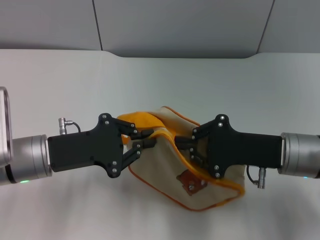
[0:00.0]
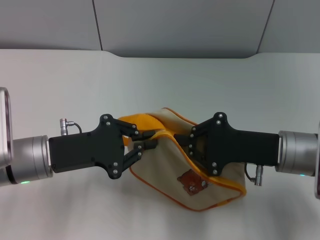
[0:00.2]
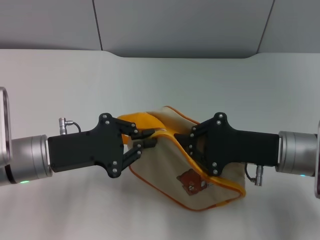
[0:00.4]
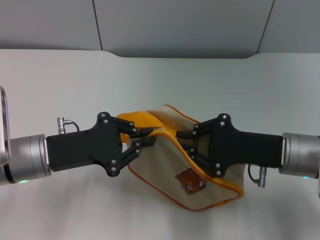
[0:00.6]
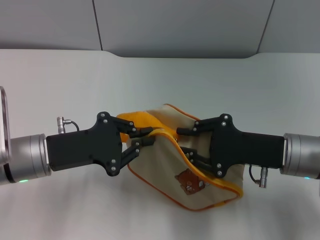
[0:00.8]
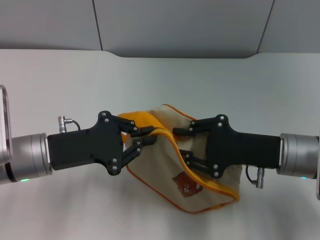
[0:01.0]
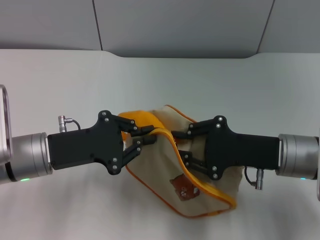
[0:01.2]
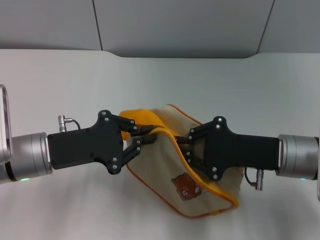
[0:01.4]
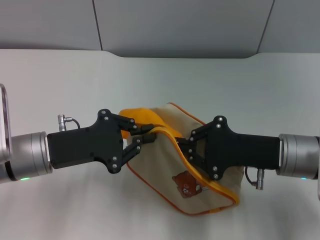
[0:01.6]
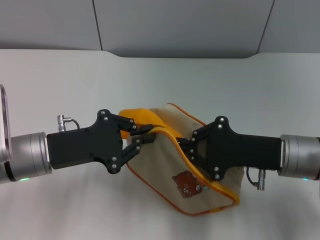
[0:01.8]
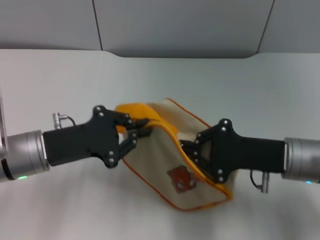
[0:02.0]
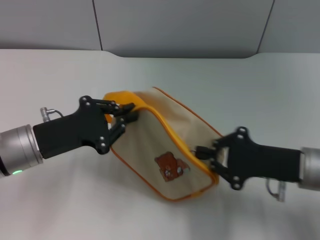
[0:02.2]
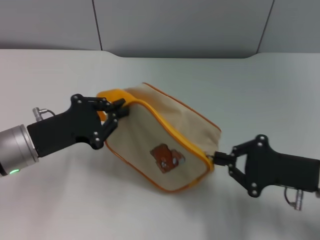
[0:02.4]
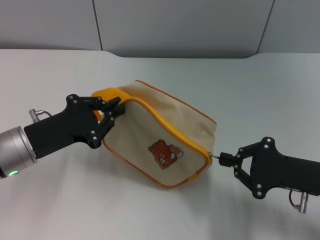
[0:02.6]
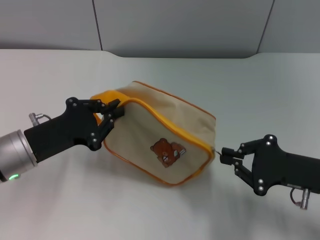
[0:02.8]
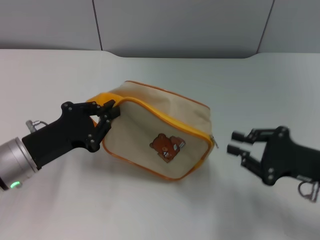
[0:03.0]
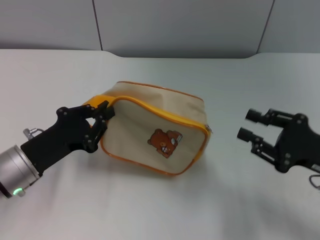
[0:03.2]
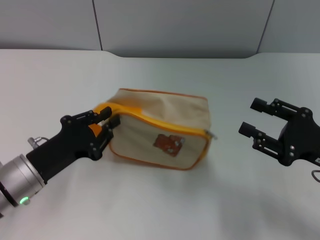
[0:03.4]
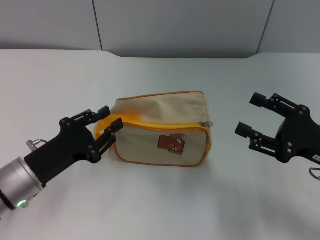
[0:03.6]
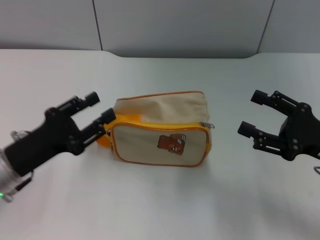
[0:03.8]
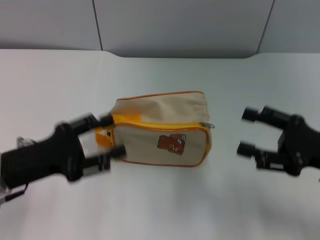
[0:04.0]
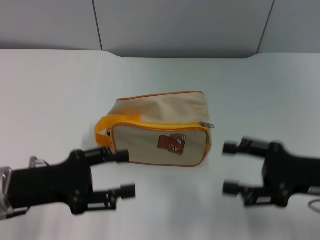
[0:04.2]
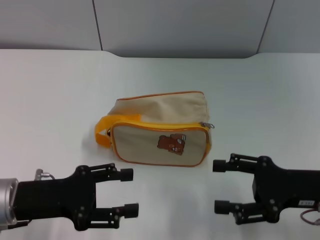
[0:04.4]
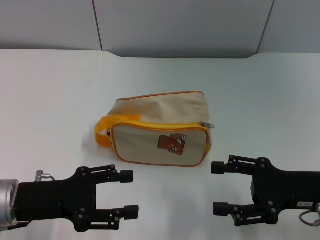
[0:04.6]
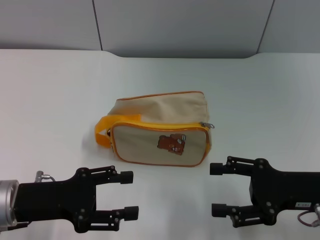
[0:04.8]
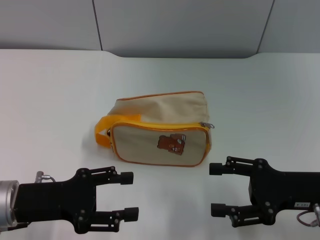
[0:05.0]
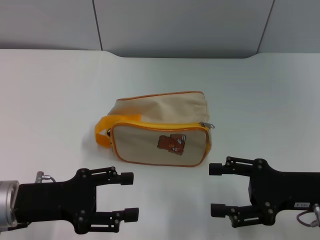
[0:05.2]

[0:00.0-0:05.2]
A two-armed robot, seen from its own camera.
Step, 0:00.0 to 0:03.0: Unzip the zipper of bag with right gripper.
Step, 0:03.2 to 0:03.6: Place the bag on the table with left gripper.
0:00.0 to 0:01.8: Both grippers stay about where they are.
0:01.8 to 0:03.4: The left gripper ends up about 5 cm from where it was. Meanwhile the right gripper is displaced to the right by approximately 10 cm, and opens its fingers.
0:03.4 to 0:05.2: The right gripper opens, while the left gripper opens up.

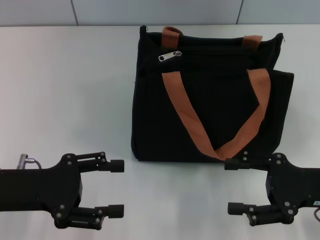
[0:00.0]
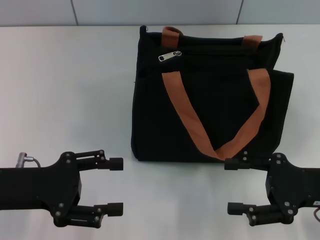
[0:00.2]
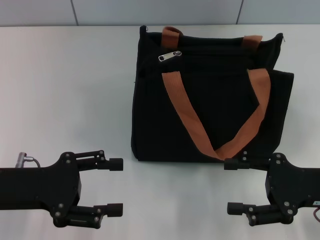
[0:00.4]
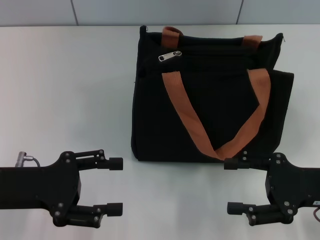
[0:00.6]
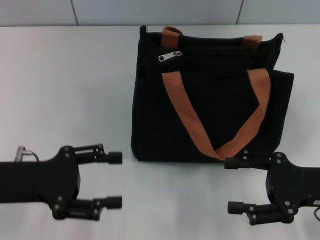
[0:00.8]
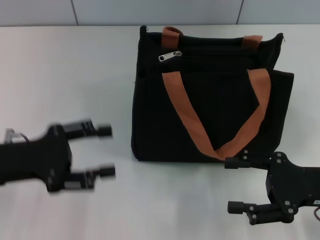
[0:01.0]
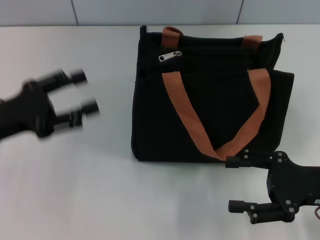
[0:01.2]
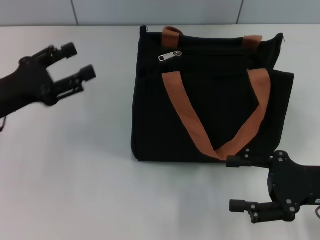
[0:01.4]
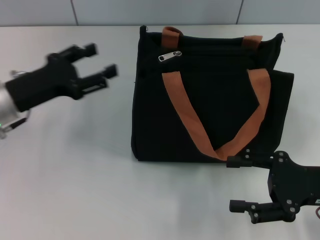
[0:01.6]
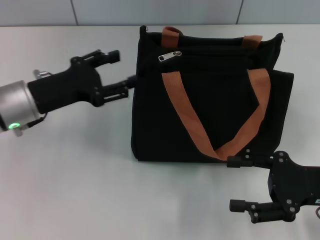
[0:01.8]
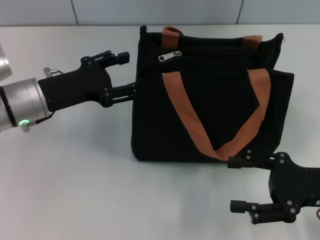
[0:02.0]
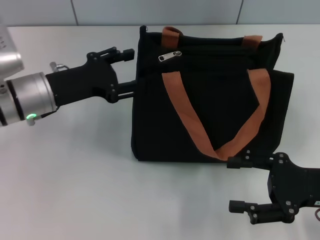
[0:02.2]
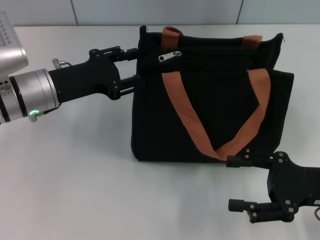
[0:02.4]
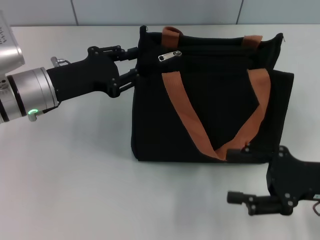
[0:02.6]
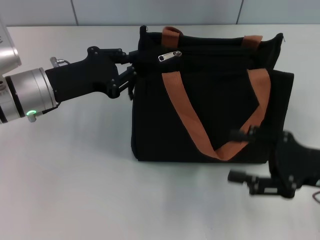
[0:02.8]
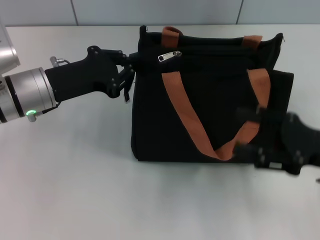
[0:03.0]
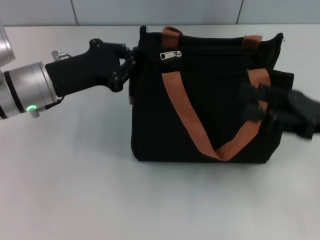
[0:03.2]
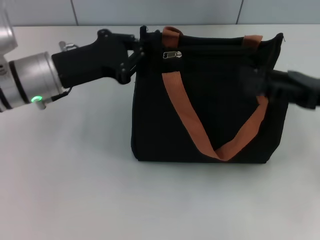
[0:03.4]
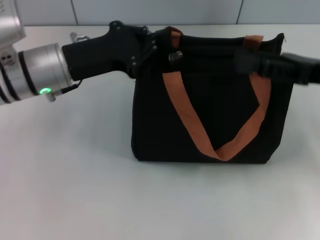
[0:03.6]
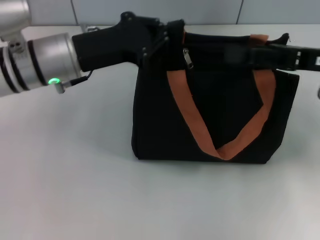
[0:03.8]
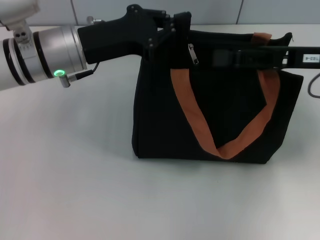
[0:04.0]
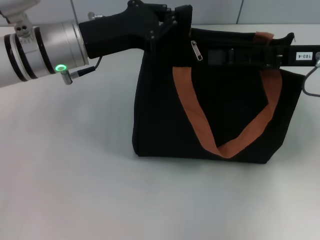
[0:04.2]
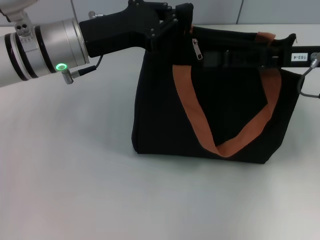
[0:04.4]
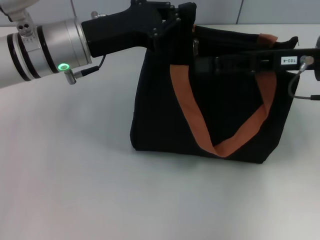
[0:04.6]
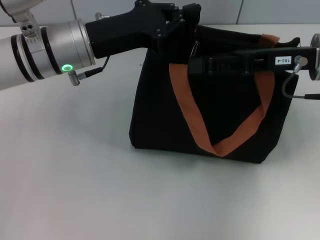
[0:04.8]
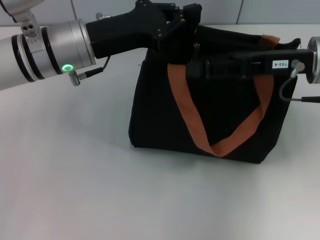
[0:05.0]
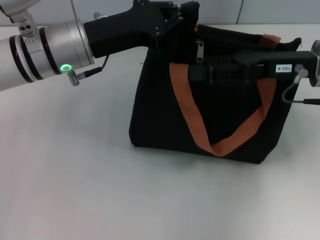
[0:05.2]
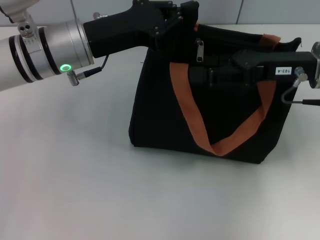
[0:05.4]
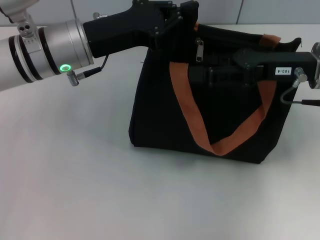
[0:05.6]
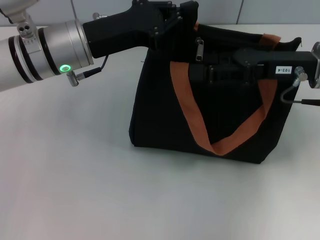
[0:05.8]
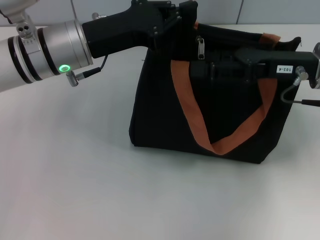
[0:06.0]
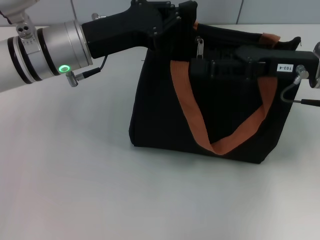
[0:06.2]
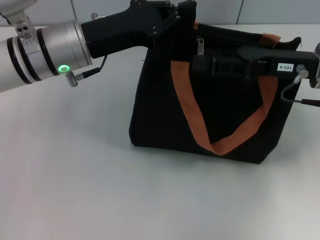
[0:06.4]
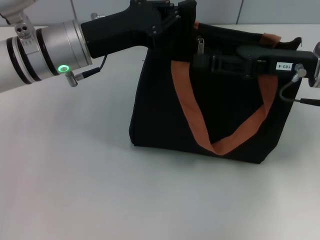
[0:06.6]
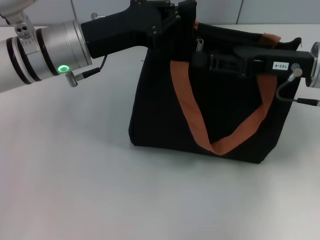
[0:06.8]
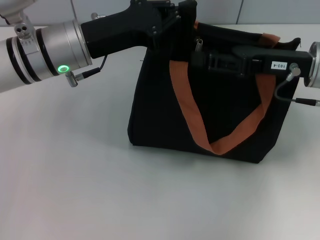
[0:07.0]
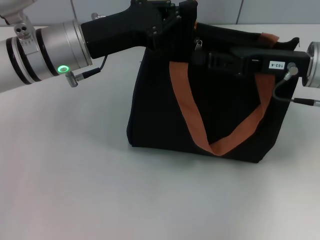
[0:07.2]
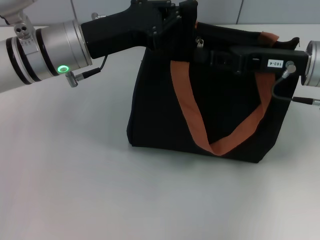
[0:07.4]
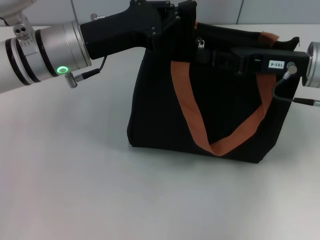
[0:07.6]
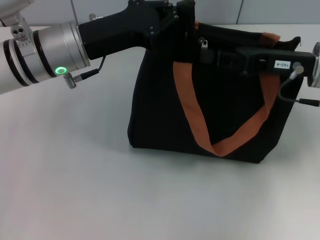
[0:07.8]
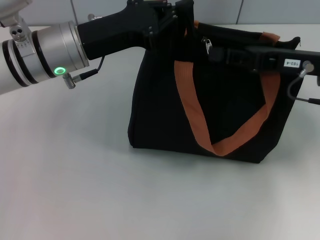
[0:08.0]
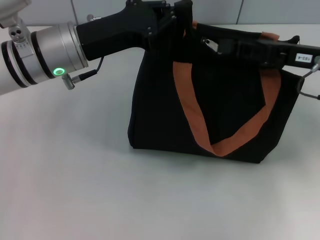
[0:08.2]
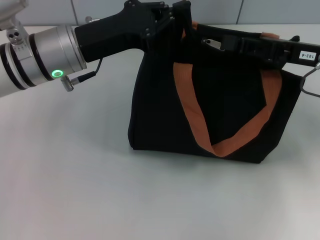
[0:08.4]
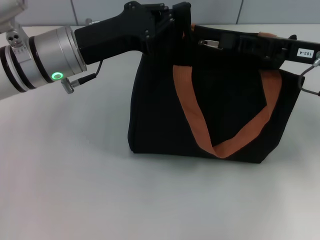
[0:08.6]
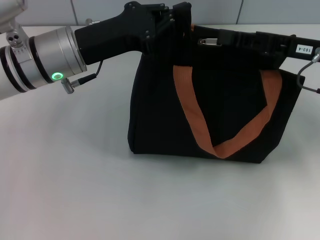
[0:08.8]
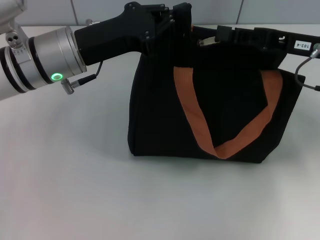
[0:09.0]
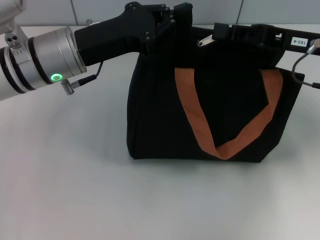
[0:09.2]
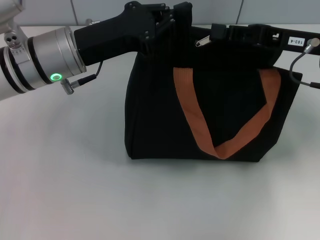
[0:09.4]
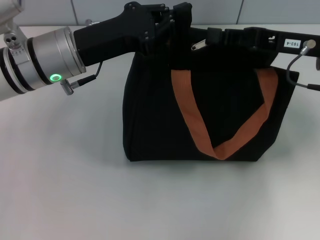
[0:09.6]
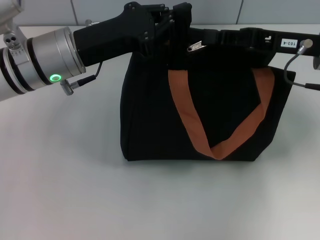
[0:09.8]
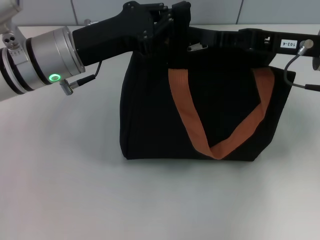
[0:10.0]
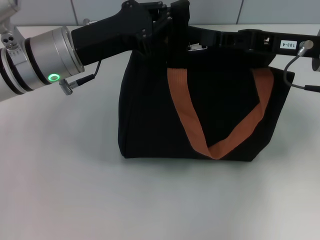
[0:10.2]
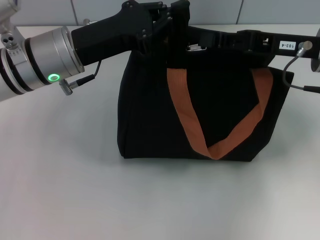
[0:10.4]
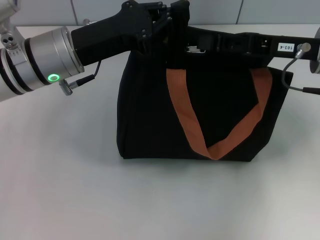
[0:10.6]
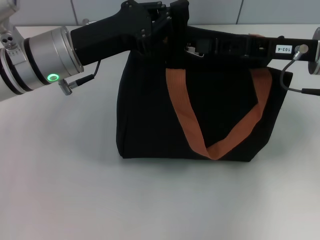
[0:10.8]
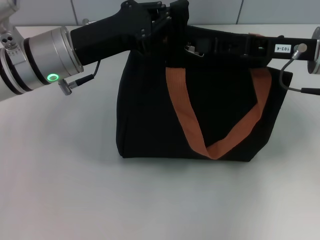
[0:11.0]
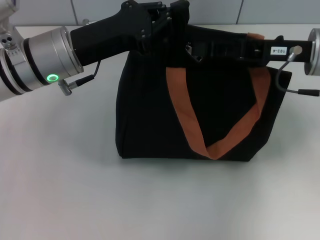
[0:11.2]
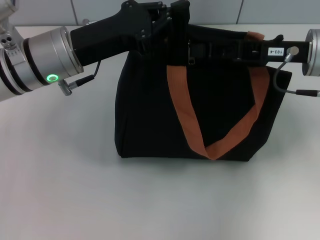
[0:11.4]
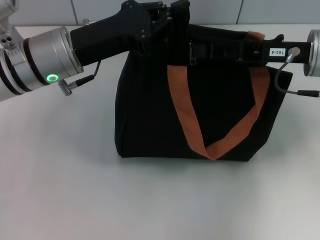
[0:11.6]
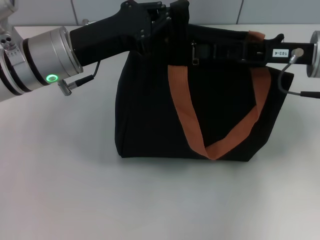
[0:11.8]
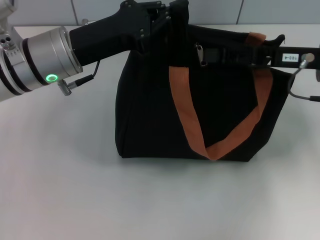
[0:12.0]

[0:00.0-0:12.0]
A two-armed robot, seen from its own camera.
0:00.0 to 0:01.6: The left gripper shifts approximately 10 cm forward.
0:01.6 to 0:03.0: The left gripper is displaced to the right by approximately 5 cm, and closes its fingers.
0:03.0 to 0:04.4: The right gripper heads forward and upward, covering about 15 cm; the left gripper travels to the right and upward by approximately 10 cm.
0:04.4 to 0:06.0: There are only small adjustments of the grippers.
0:06.0 to 0:07.6: The right gripper closes its fingers.
0:07.6 to 0:10.4: The grippers make only small movements.
0:10.4 to 0:12.0: Neither gripper changes place.

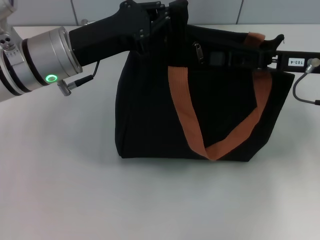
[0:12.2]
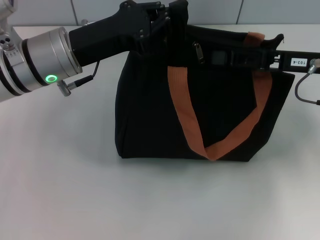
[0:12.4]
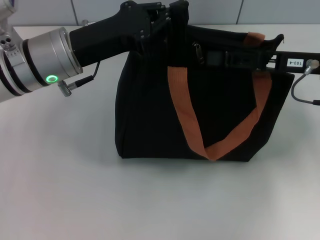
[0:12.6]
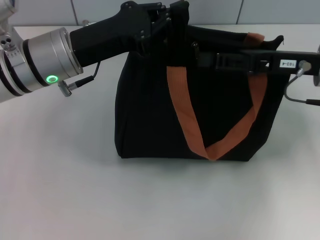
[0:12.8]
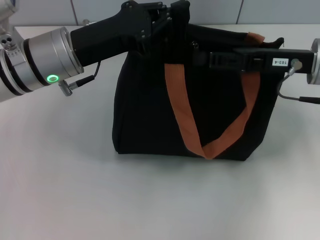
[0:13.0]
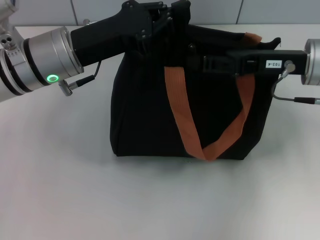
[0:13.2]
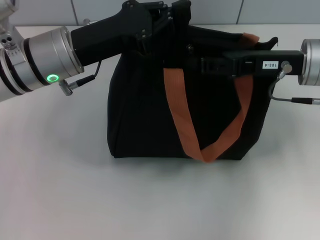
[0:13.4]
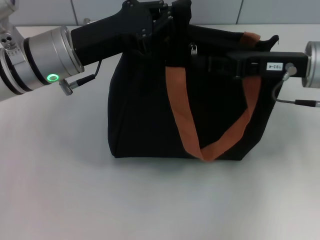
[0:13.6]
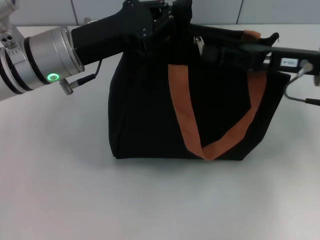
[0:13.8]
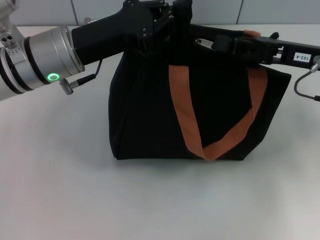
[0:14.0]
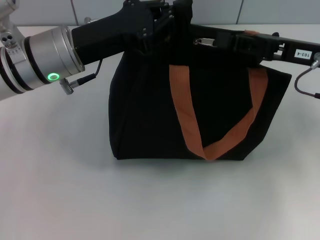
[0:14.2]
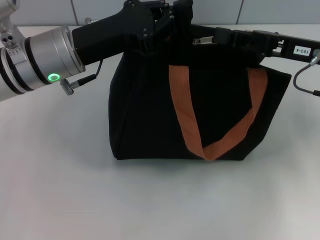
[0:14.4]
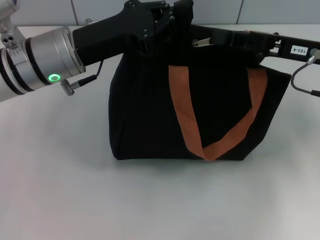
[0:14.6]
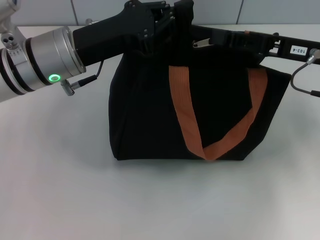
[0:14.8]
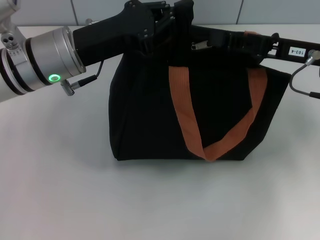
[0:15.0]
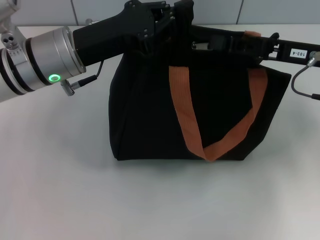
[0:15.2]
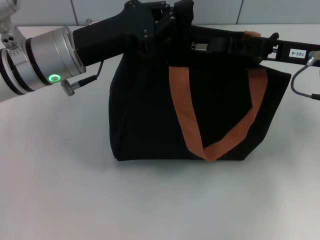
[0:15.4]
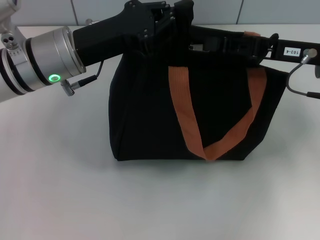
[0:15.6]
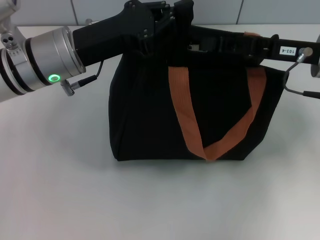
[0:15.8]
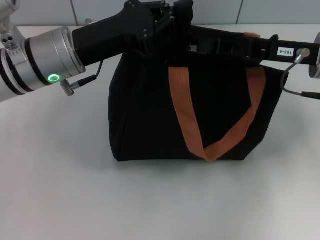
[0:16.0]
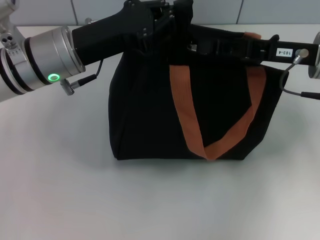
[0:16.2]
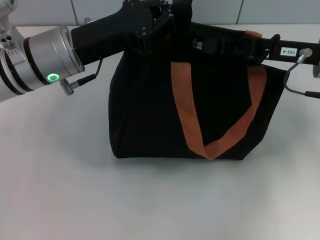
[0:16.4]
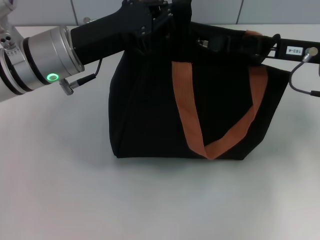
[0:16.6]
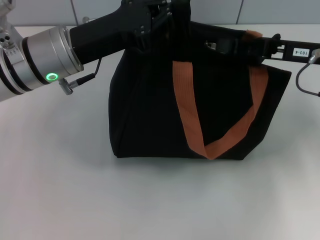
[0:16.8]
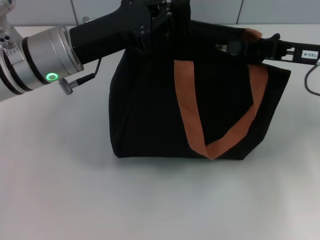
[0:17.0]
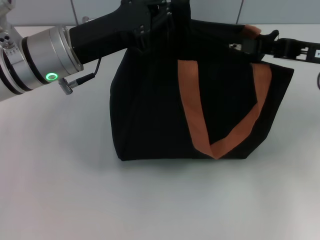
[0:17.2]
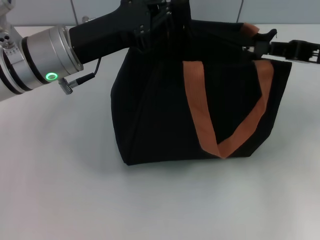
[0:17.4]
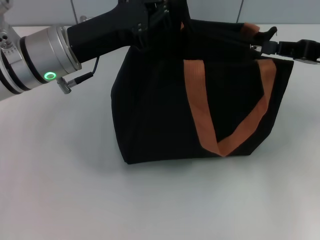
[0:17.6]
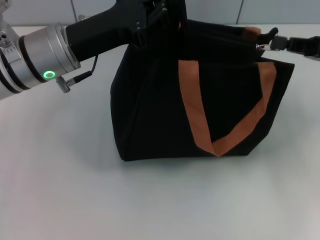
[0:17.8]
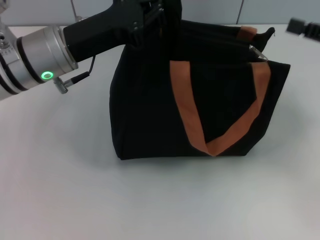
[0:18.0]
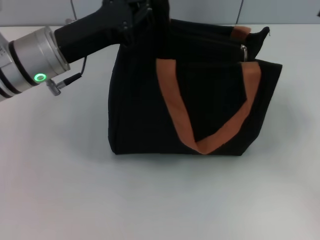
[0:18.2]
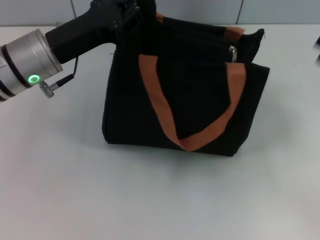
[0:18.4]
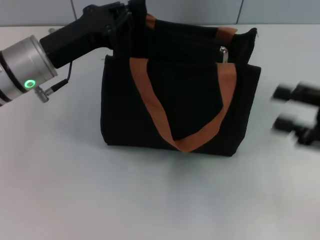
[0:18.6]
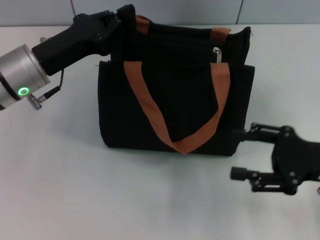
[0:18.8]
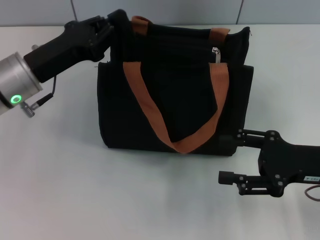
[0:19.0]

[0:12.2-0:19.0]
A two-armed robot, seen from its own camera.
Step, 0:12.2 to 0:17.8: Pull up the zipper with your right hand.
0:12.2 to 0:16.2: The grippers stay close to where they were, moving slightly.
0:16.2 to 0:17.6: The right gripper shifts about 10 cm to the right.
0:17.6 to 0:19.0: The left gripper shifts roughly 5 cm to the left. The right gripper travels backward and downward by roughly 10 cm, and opens up.
